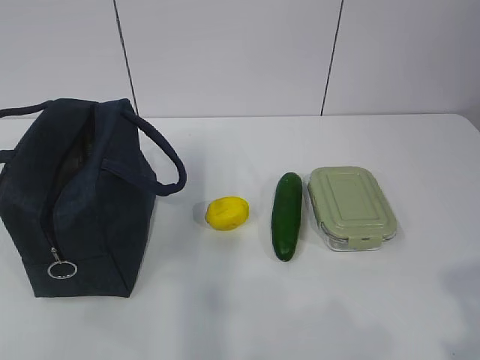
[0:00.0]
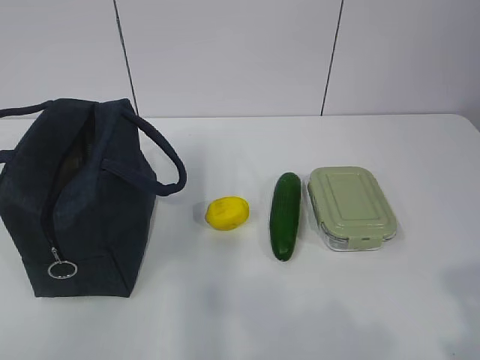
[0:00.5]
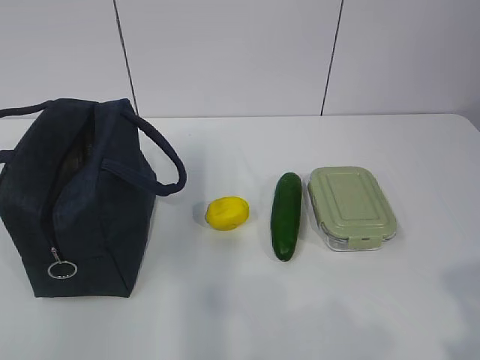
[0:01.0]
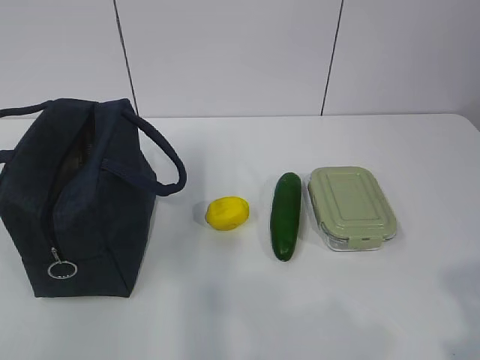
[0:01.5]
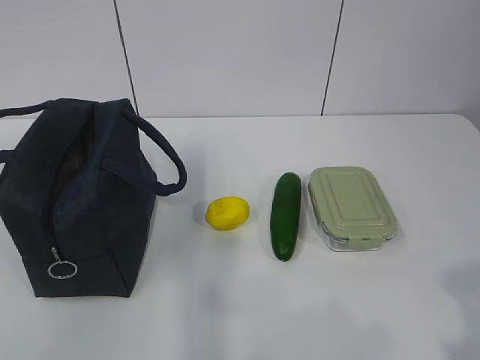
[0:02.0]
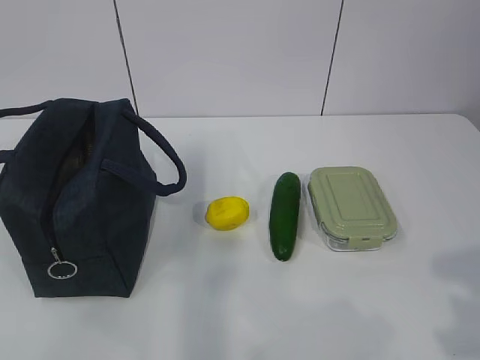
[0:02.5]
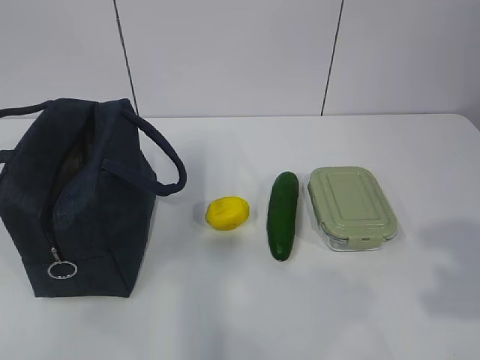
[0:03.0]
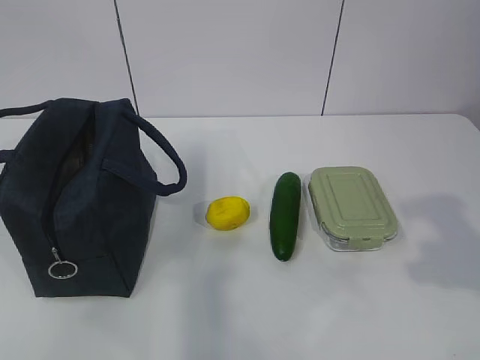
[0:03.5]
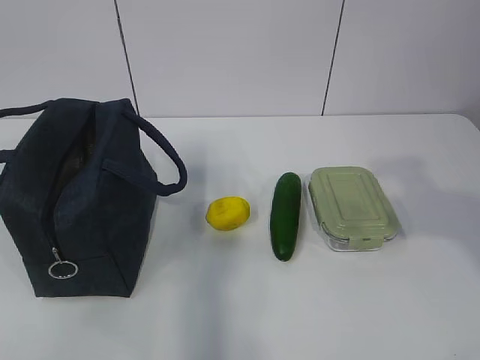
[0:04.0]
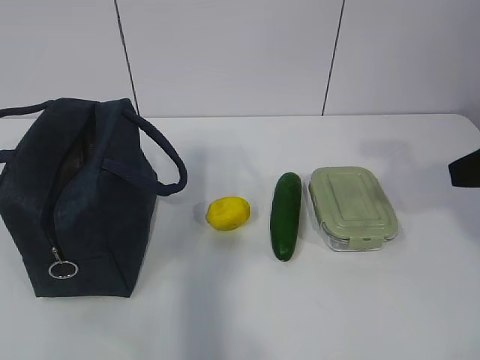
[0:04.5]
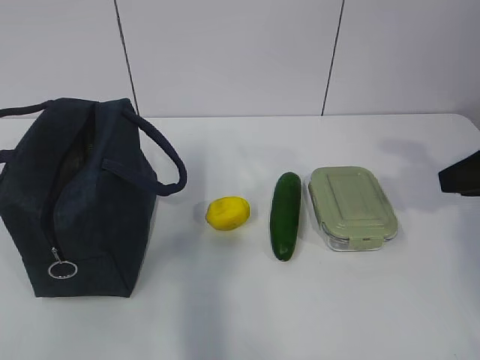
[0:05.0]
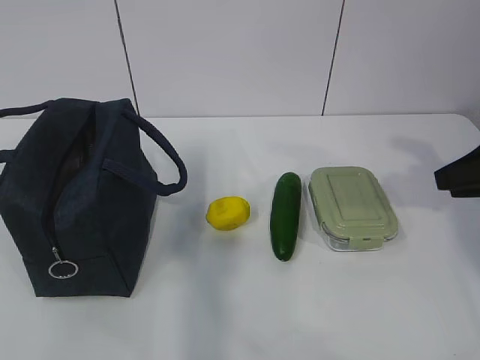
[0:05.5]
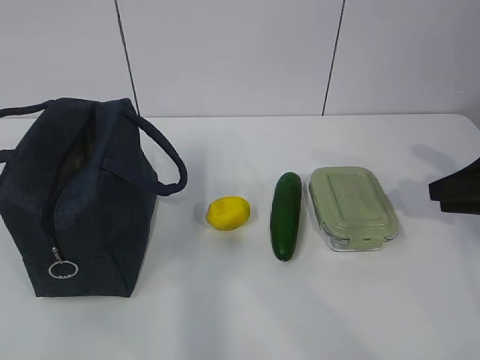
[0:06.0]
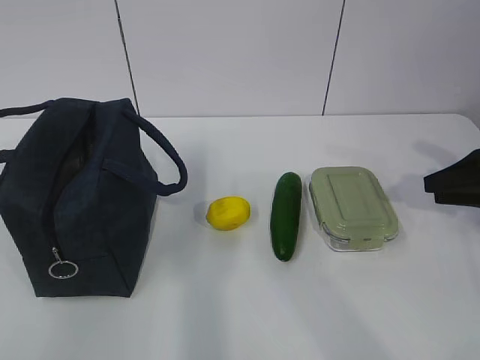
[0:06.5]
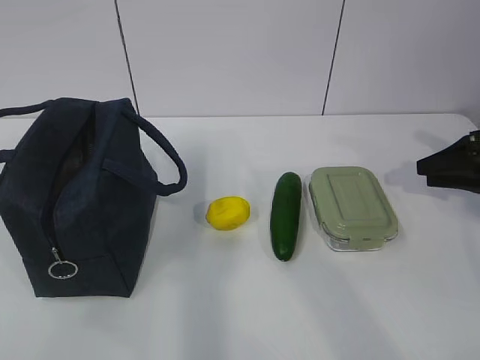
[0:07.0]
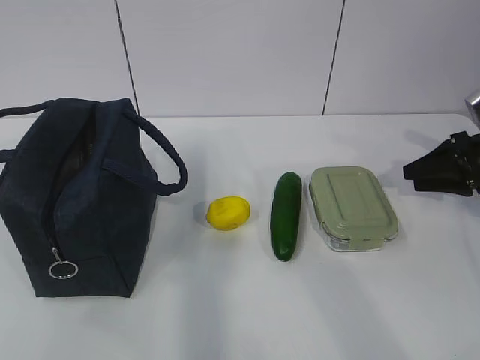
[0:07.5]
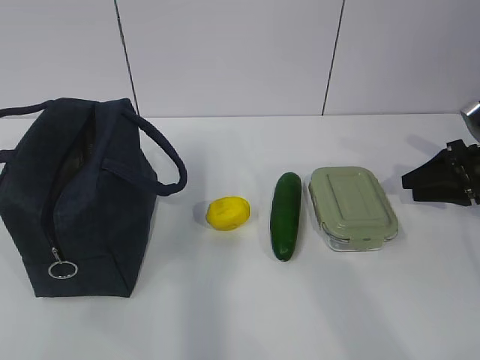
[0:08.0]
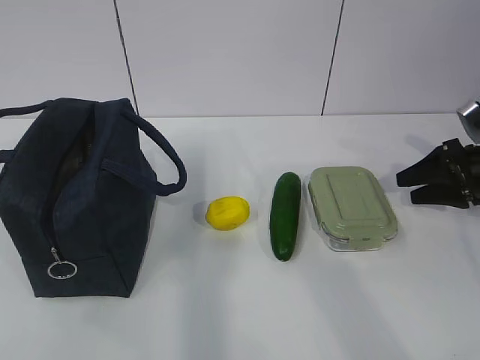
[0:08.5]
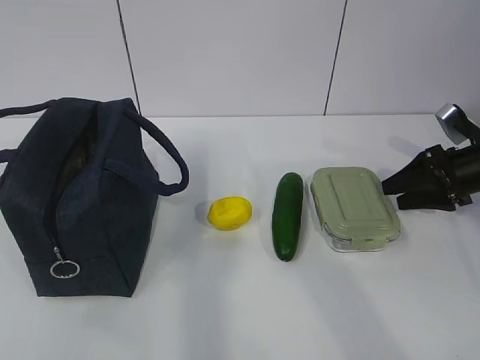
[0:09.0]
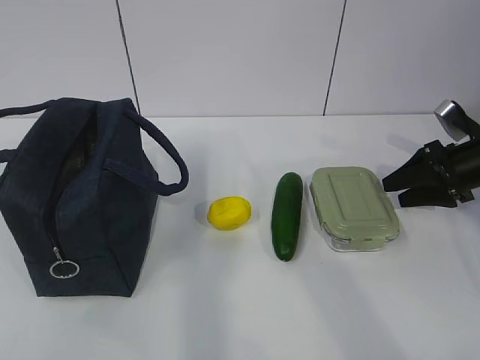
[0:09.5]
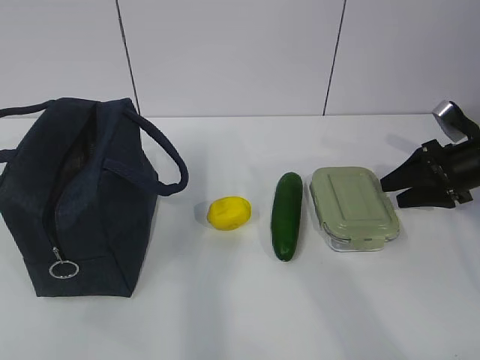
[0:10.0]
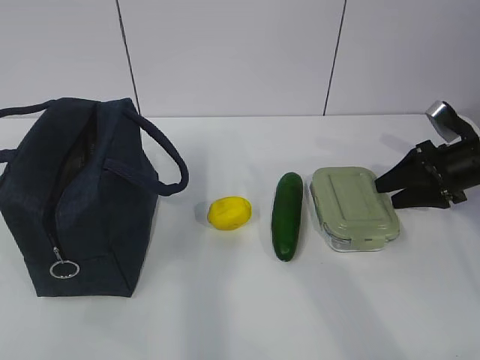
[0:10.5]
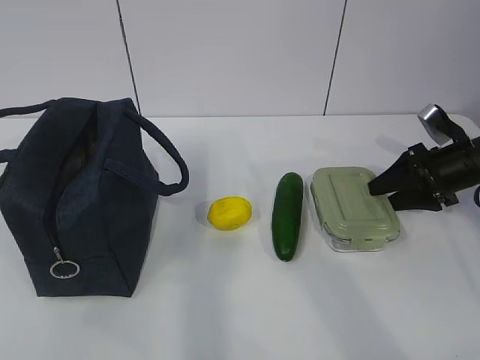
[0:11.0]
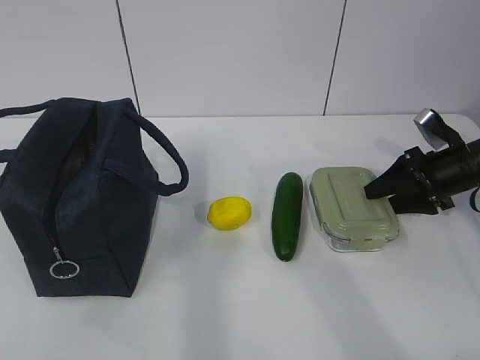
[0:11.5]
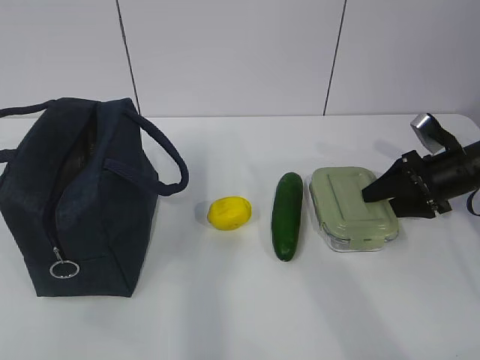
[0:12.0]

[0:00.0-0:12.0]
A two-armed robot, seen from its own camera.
0:04.0 to 0:06.0: The right gripper heads forward, downward and to the right, covering roughly 20 cm.
0:06.0 to 0:08.0: The right gripper is displaced forward and downward by about 10 cm.
0:08.0 to 0:12.0: There are only small adjustments of the grippers.

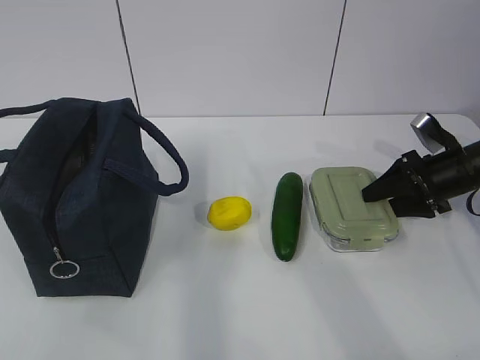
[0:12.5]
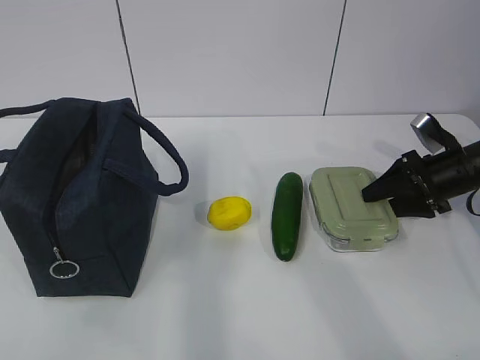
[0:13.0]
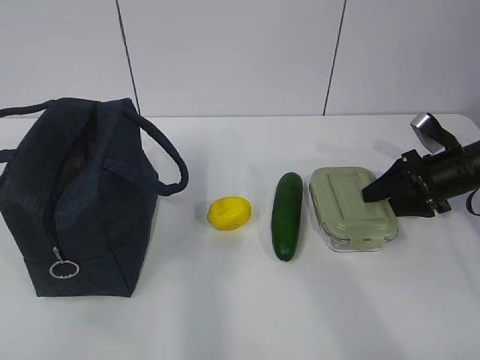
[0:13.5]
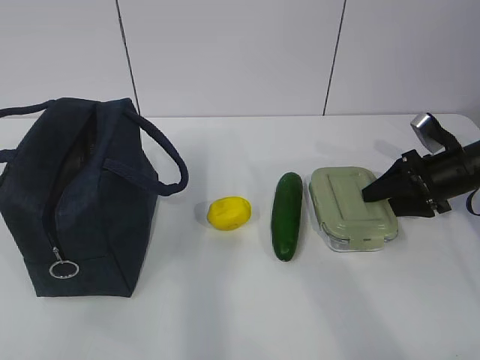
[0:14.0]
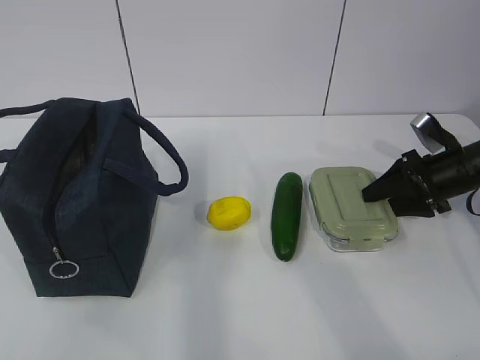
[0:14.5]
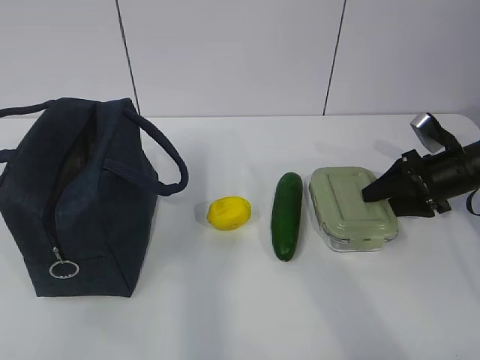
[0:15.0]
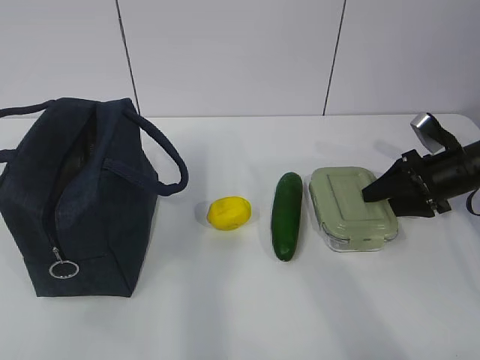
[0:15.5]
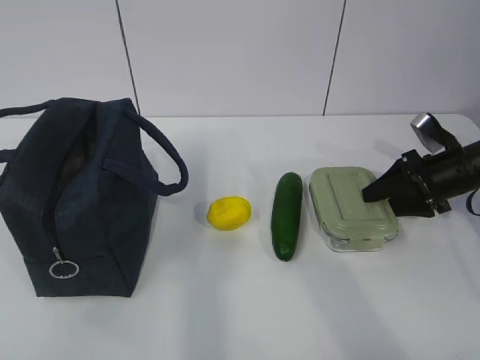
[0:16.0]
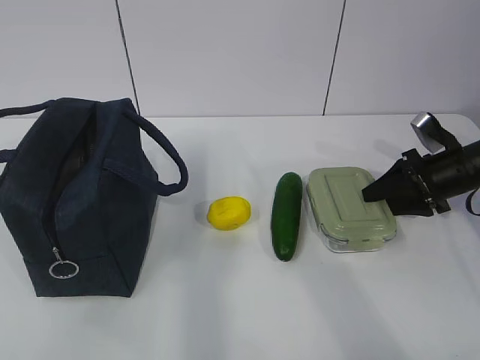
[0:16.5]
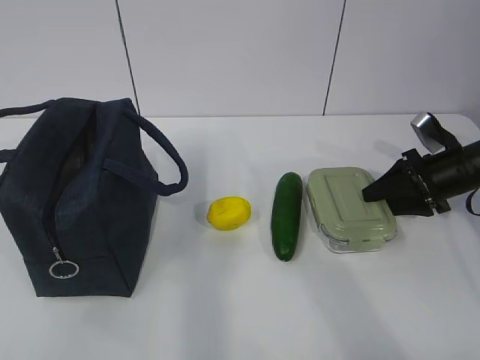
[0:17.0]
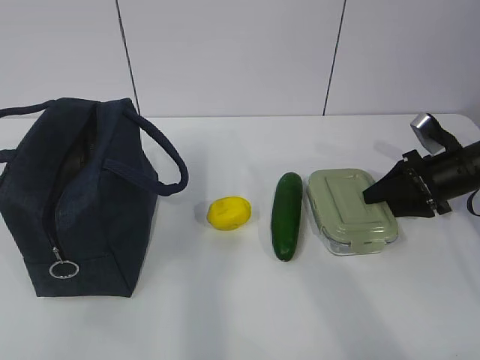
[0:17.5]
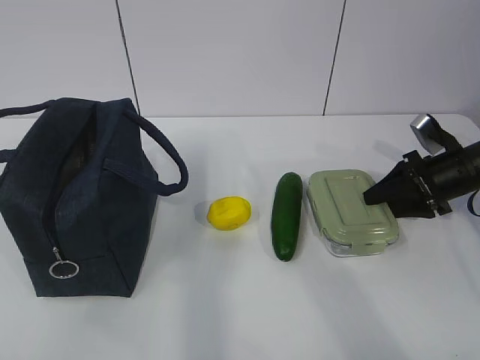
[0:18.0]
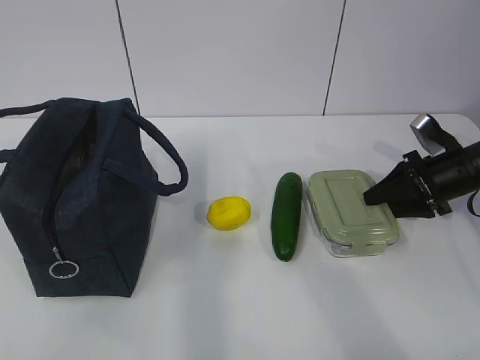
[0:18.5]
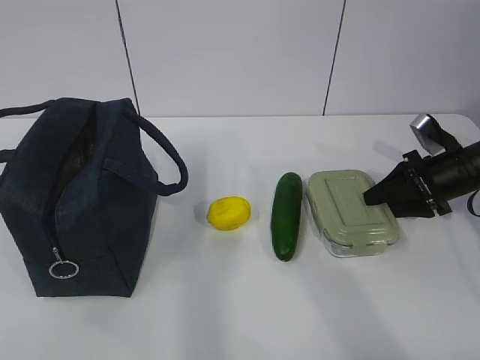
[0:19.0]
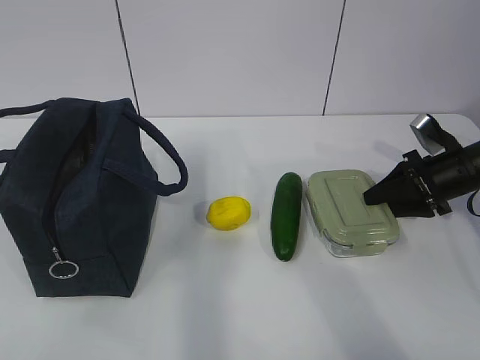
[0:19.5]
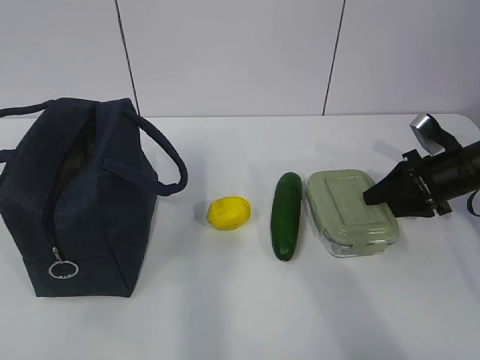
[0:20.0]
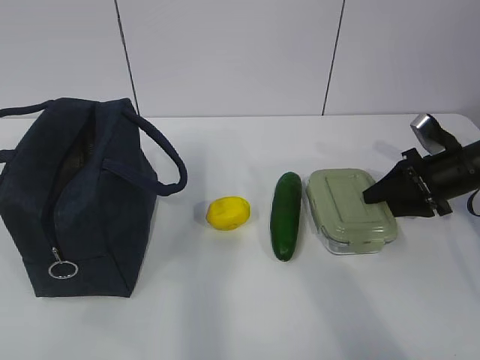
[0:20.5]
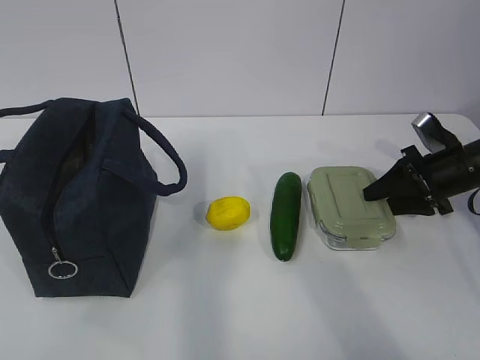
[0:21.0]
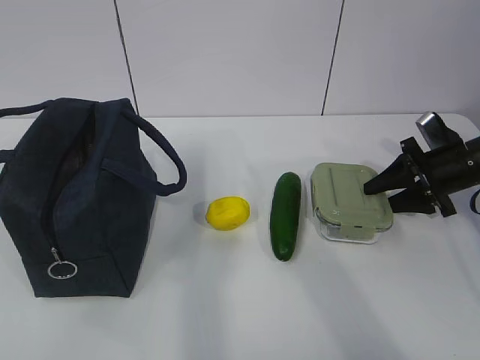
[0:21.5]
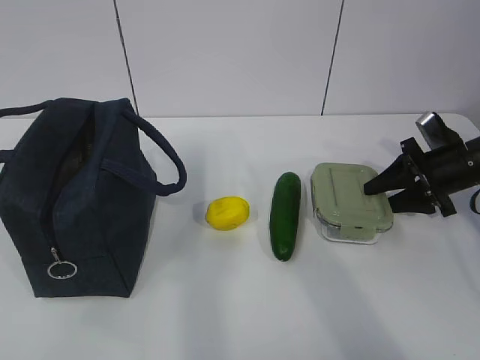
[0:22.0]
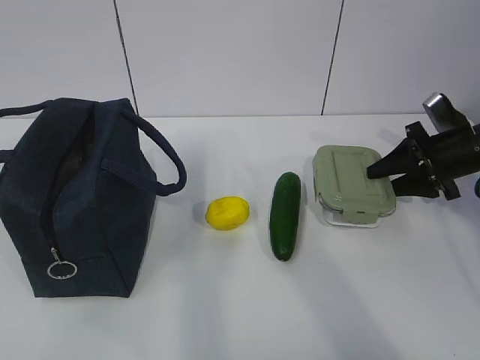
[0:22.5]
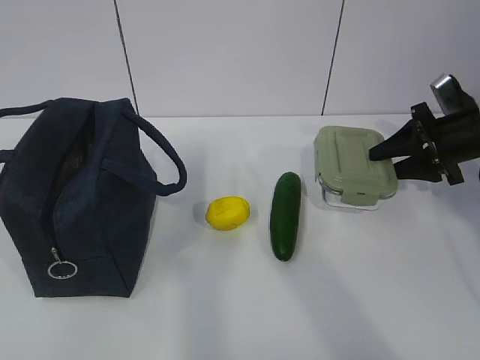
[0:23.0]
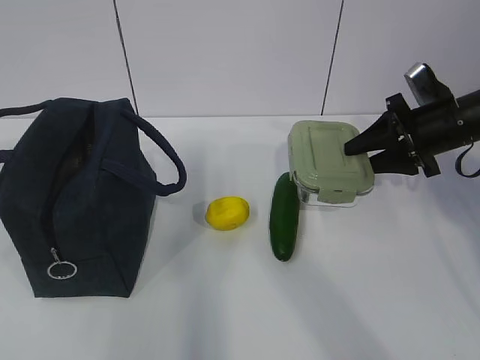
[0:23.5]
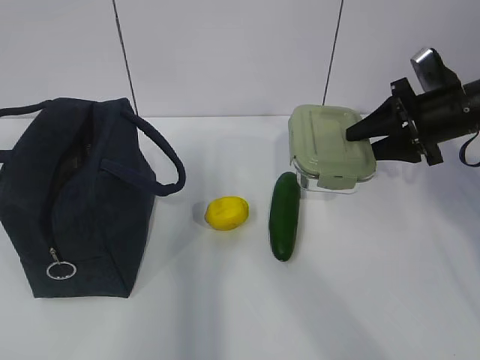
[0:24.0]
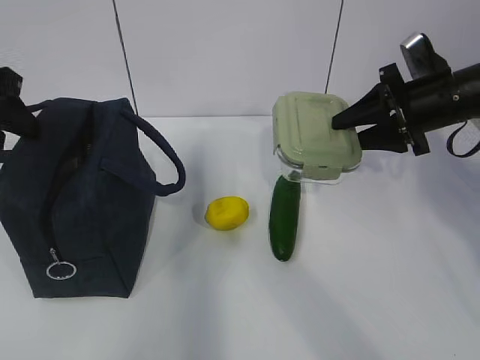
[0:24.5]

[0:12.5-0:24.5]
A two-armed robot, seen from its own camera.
0:12.5 to 0:20.5: Both grippers stay about where they are.
0:20.5 to 0:22.5: The grippers move only a little.
0:22.5 to 0:24.5: The right gripper is displaced upward and to the left by some 10 cm. The left gripper goes some 30 cm forward.

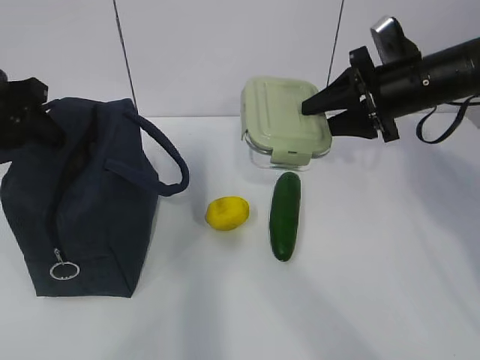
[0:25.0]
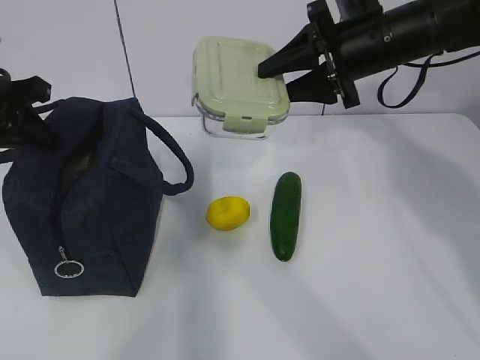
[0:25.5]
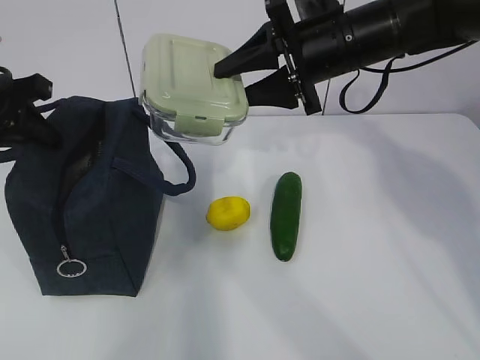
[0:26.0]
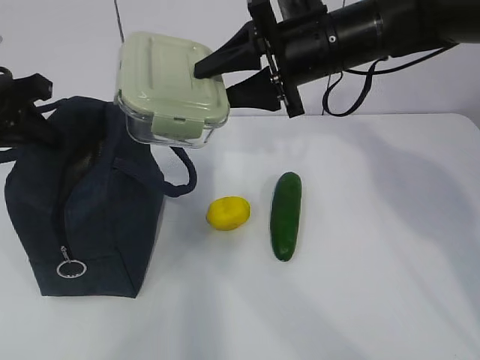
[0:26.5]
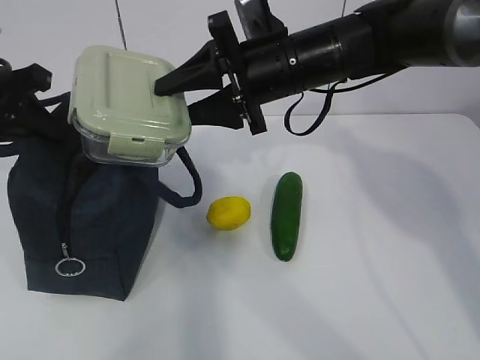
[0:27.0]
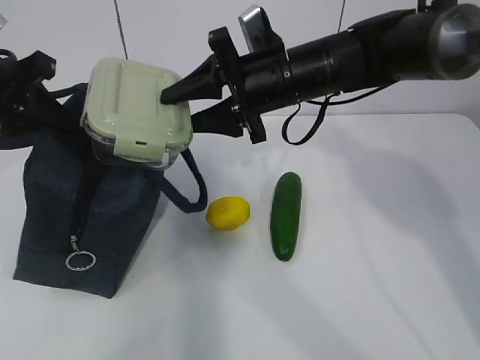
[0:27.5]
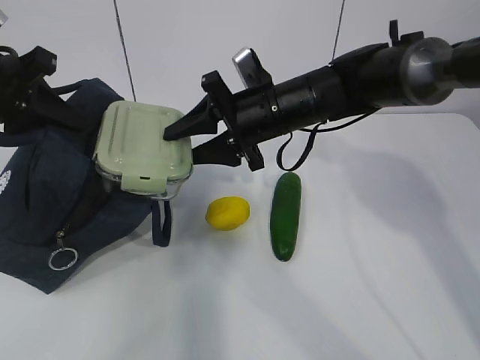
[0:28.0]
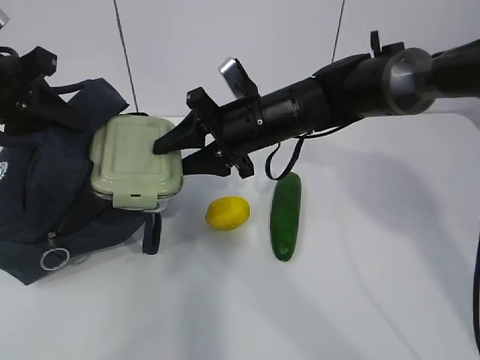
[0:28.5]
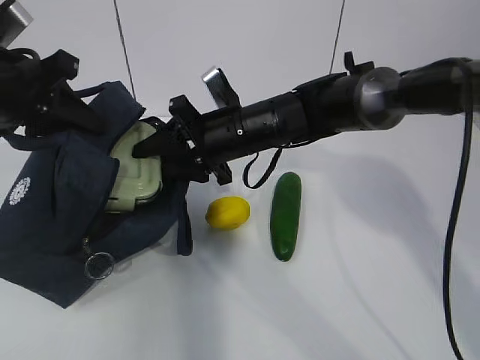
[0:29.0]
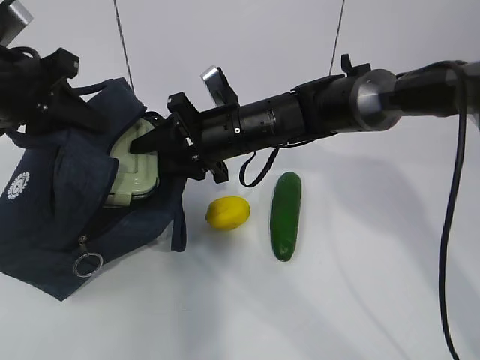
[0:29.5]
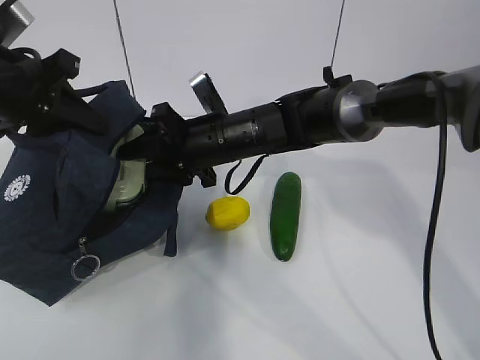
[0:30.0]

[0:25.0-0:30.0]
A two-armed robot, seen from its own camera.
0:25.0 to 0:27.5: The left gripper closes; the right gripper travels to the left by some 15 cm.
0:27.5 to 0:30.0: The right gripper heads downward and to the left, covering about 10 cm.
